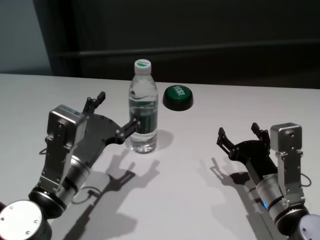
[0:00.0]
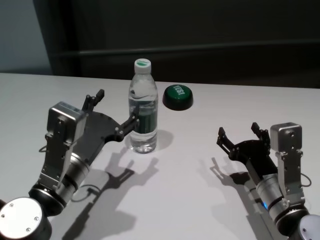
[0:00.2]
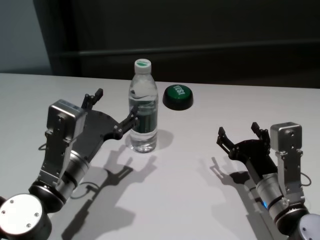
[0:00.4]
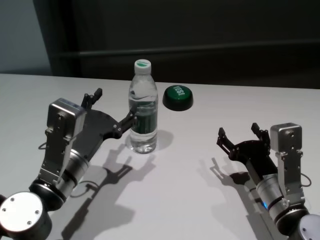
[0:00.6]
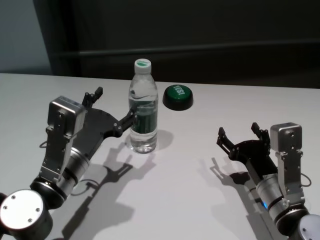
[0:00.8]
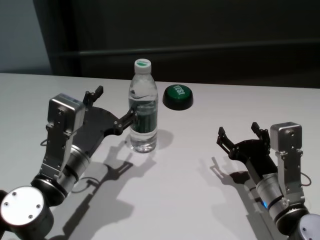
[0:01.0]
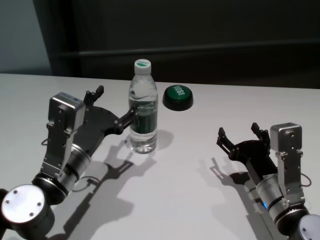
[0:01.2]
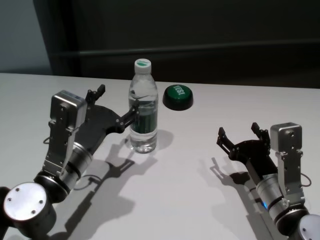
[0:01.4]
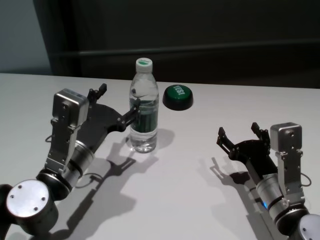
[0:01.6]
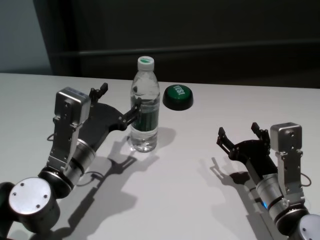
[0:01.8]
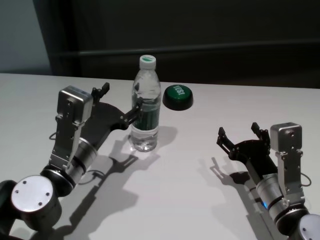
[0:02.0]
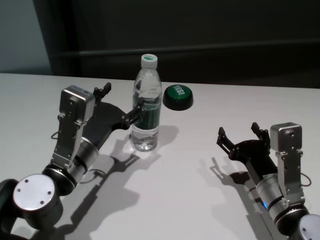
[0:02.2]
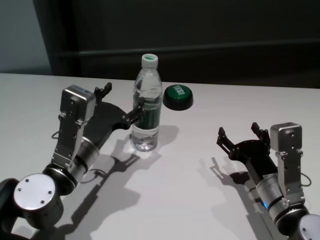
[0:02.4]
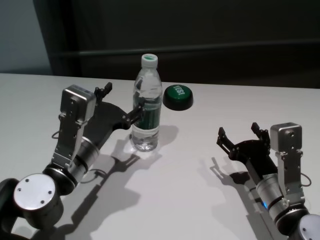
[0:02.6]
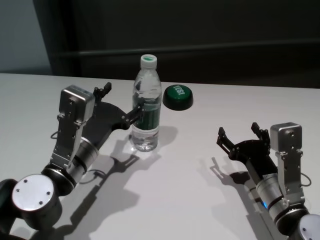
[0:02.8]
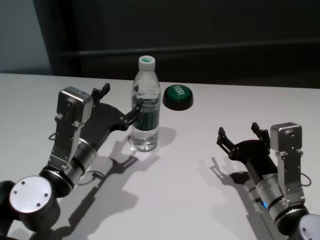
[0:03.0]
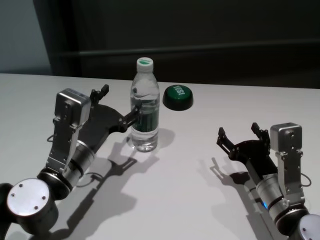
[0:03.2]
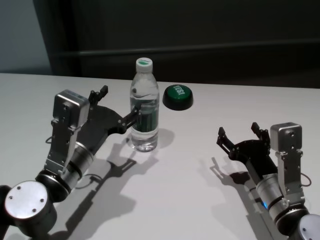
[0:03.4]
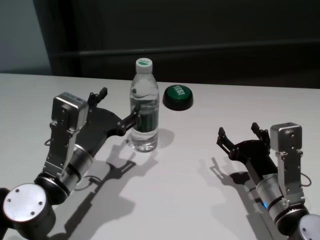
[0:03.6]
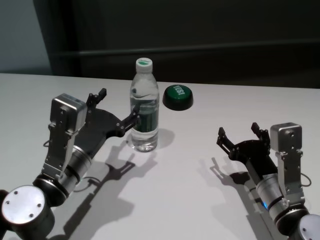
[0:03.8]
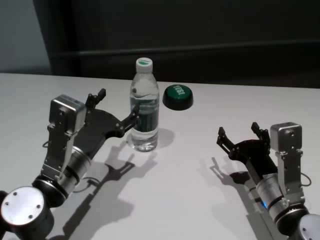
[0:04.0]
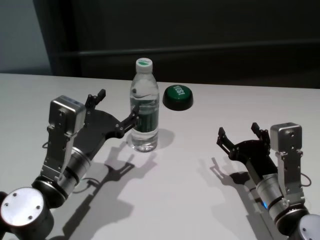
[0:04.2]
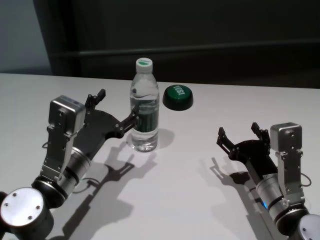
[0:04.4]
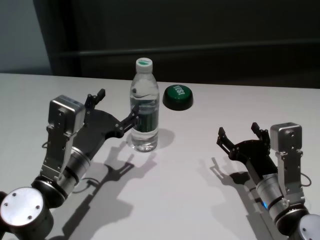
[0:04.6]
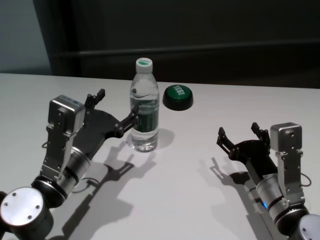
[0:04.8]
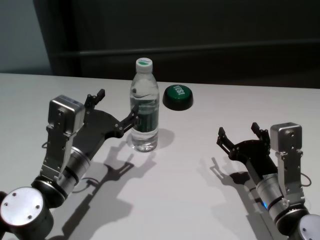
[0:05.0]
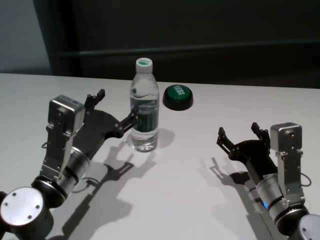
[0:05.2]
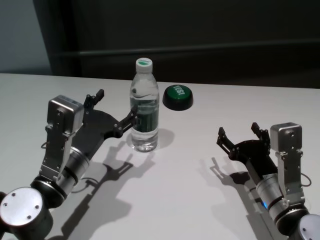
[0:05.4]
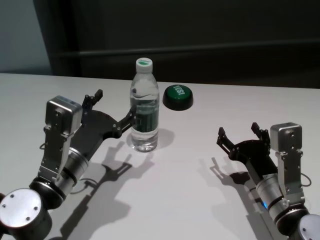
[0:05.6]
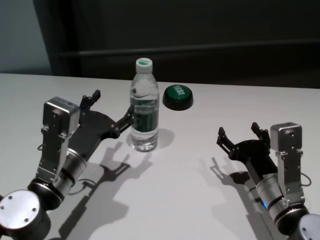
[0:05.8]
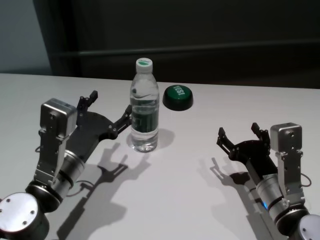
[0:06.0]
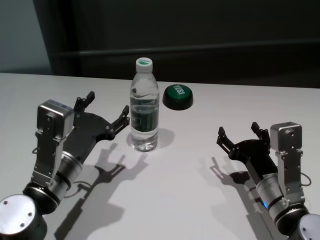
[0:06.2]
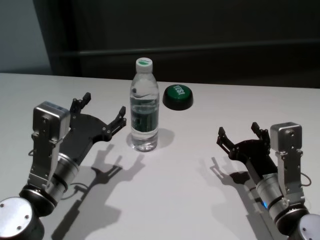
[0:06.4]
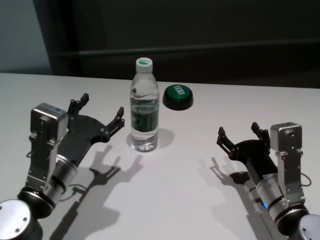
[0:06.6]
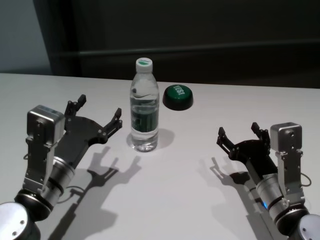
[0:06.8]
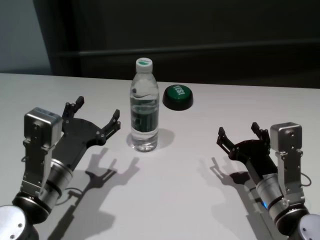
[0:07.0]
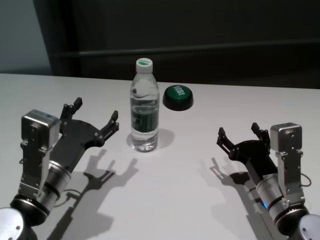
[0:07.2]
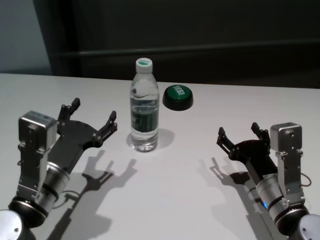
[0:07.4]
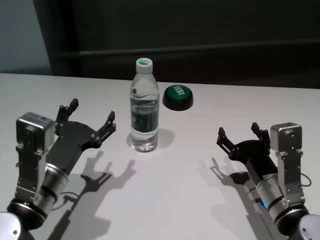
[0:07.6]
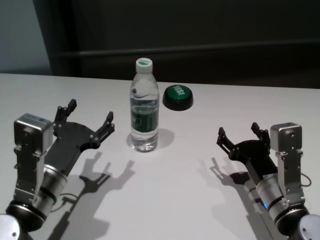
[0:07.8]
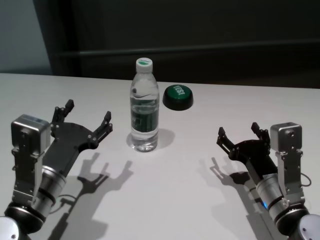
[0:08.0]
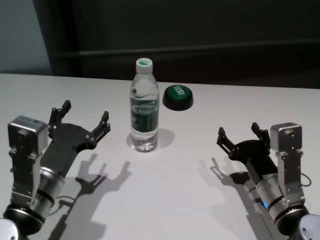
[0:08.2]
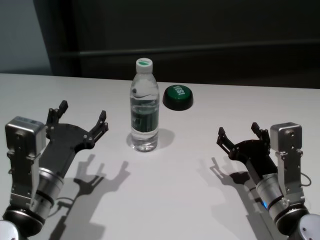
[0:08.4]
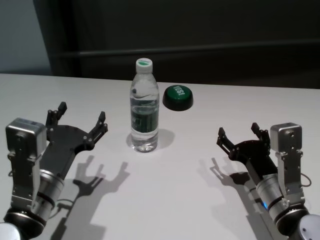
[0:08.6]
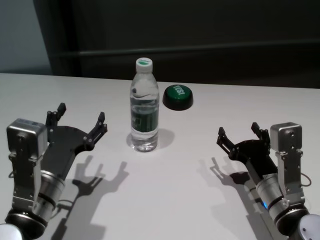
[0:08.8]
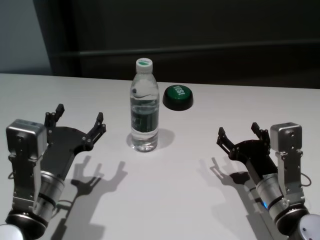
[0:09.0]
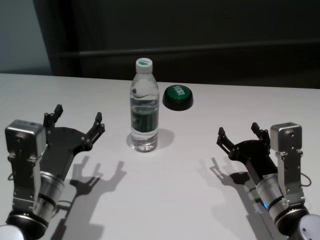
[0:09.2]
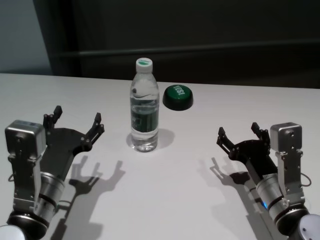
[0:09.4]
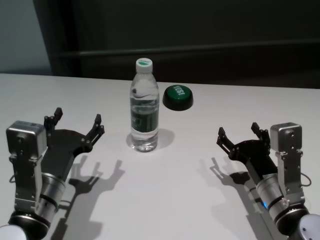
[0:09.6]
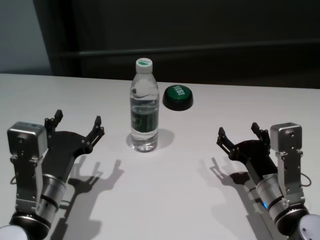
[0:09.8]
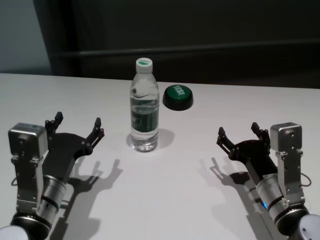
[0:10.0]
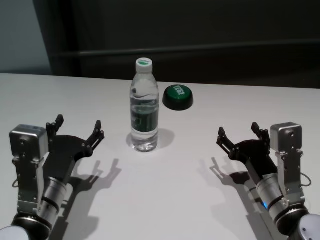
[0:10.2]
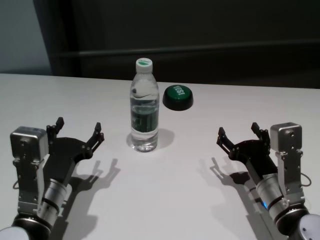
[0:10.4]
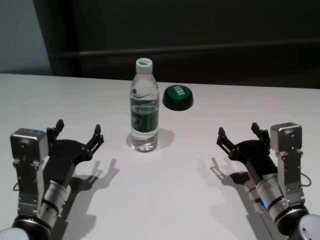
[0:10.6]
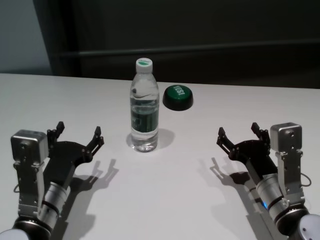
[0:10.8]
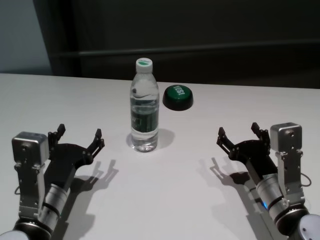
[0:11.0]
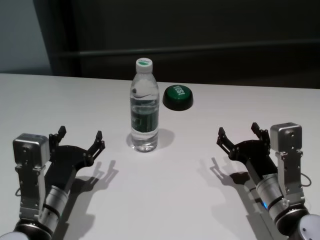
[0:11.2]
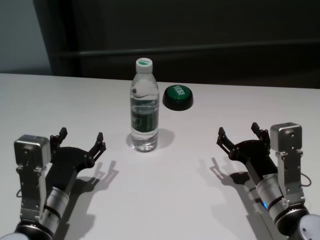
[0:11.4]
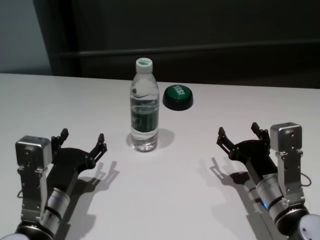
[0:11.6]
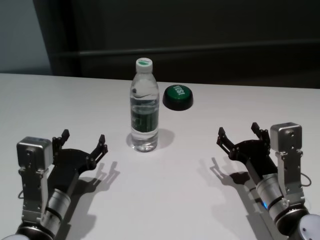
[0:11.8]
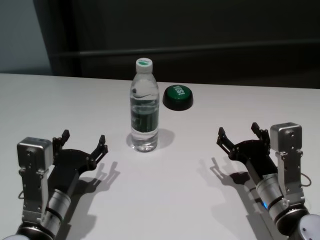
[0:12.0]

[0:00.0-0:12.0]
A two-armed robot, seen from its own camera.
Task of the whole recording: return to a safe position after touching an obstacle with your arm on the white table.
Step, 0:00.0 to 0:06.4: Touch the bottle with left gripper.

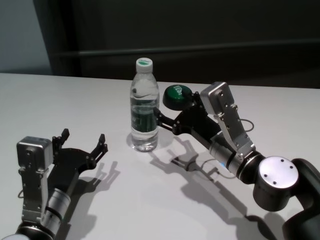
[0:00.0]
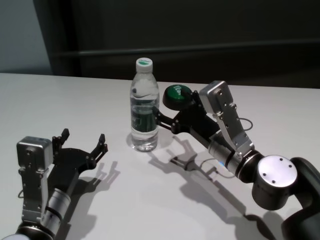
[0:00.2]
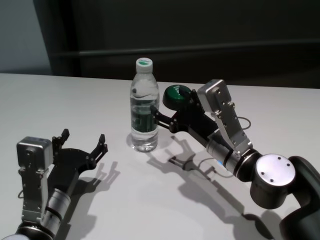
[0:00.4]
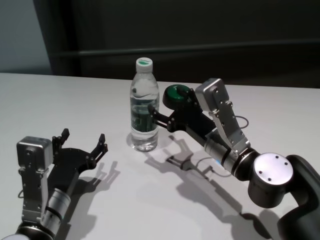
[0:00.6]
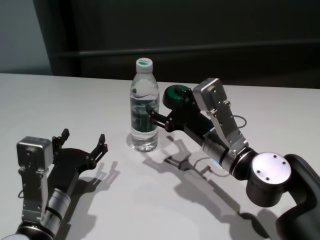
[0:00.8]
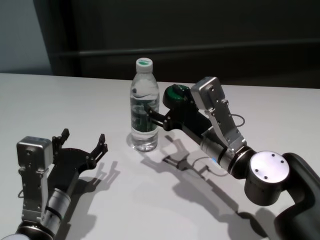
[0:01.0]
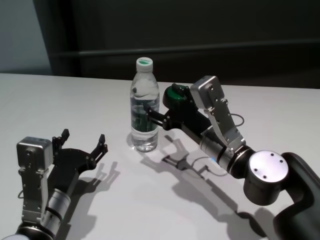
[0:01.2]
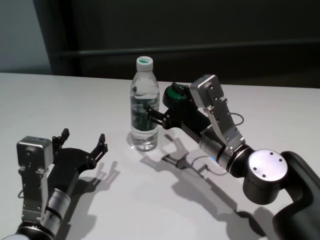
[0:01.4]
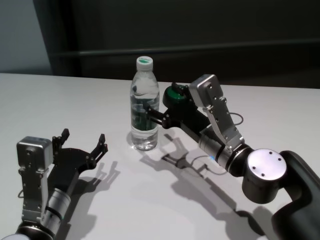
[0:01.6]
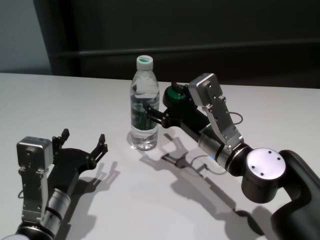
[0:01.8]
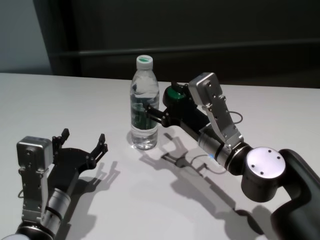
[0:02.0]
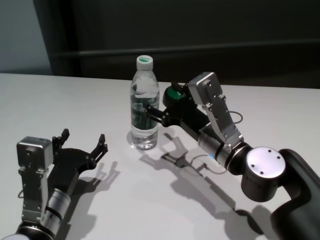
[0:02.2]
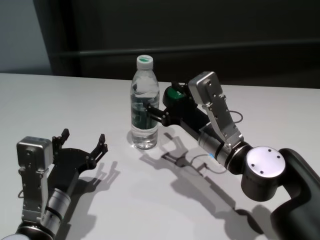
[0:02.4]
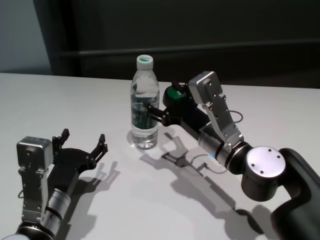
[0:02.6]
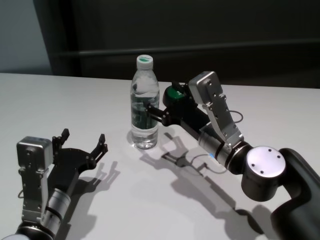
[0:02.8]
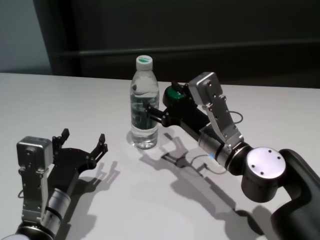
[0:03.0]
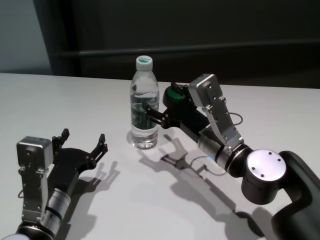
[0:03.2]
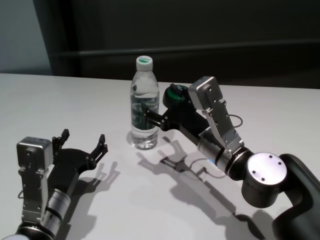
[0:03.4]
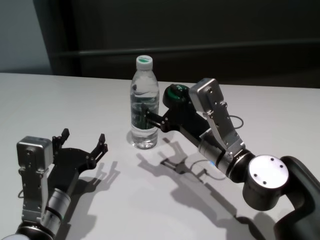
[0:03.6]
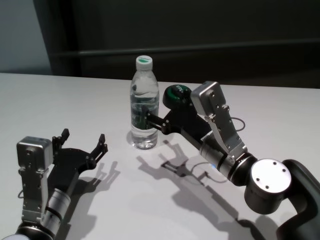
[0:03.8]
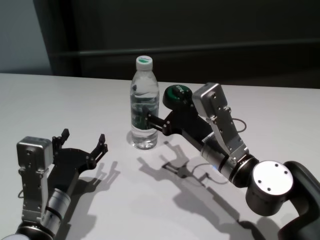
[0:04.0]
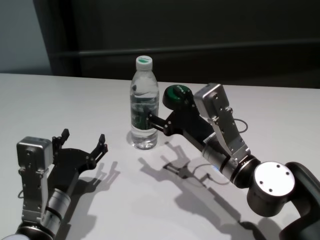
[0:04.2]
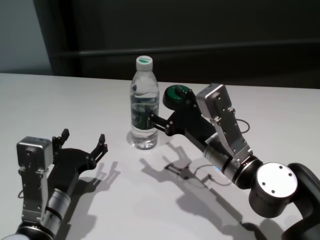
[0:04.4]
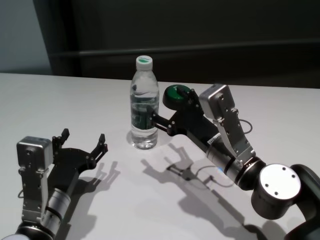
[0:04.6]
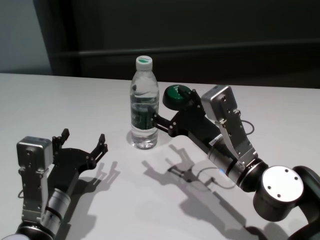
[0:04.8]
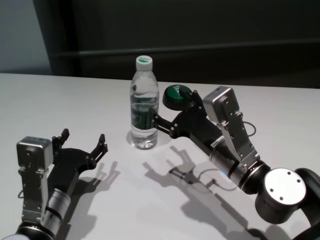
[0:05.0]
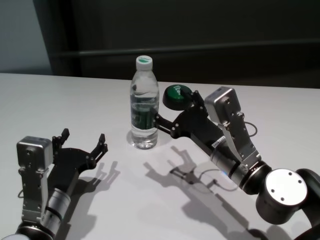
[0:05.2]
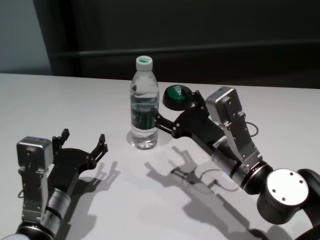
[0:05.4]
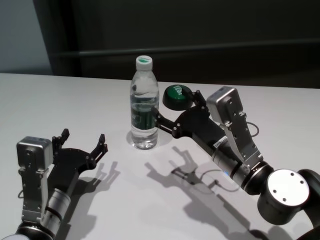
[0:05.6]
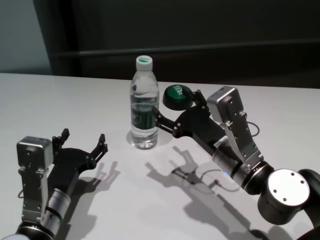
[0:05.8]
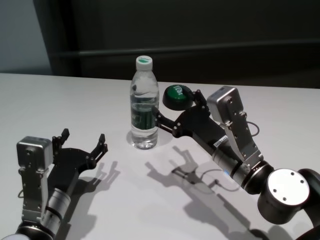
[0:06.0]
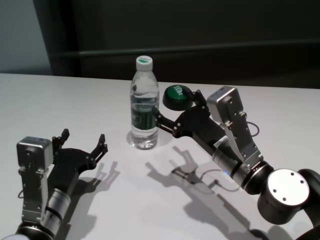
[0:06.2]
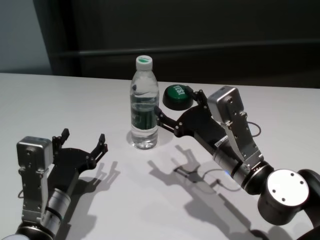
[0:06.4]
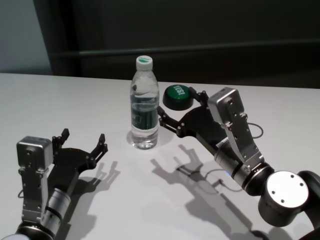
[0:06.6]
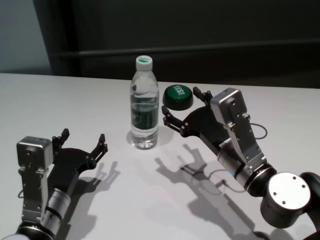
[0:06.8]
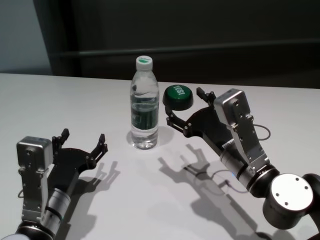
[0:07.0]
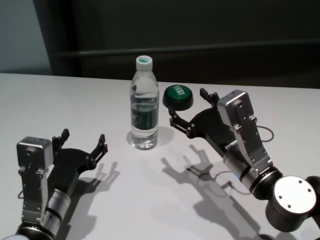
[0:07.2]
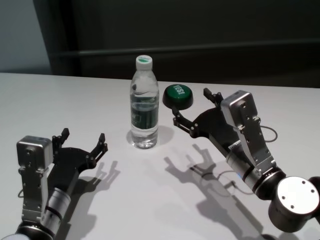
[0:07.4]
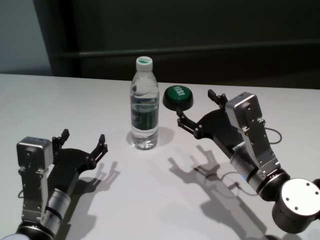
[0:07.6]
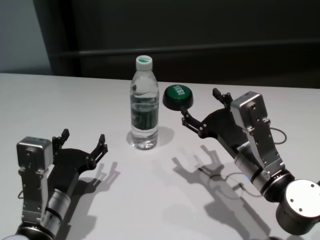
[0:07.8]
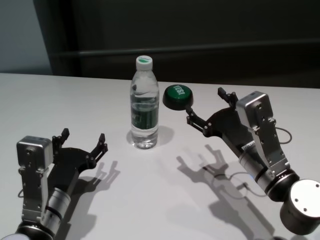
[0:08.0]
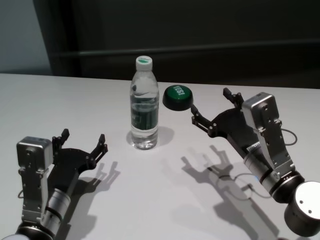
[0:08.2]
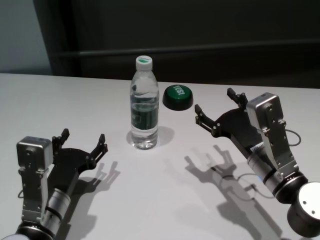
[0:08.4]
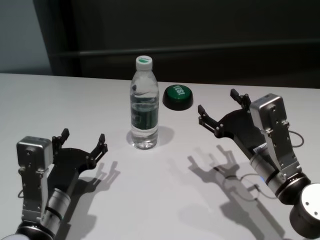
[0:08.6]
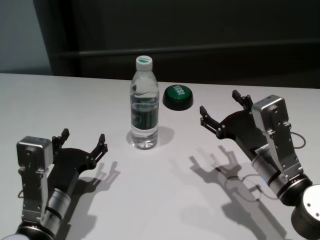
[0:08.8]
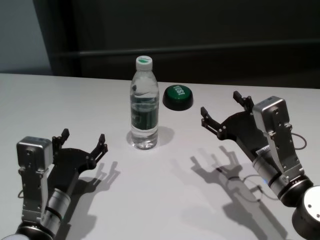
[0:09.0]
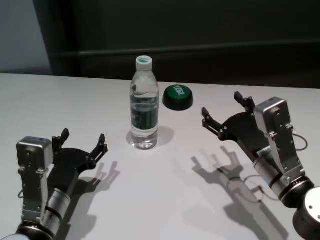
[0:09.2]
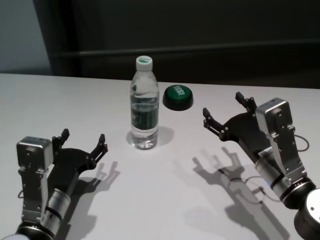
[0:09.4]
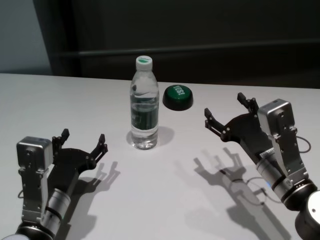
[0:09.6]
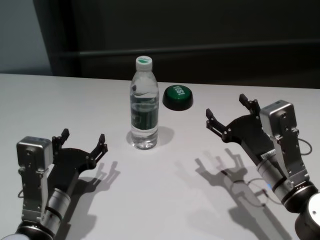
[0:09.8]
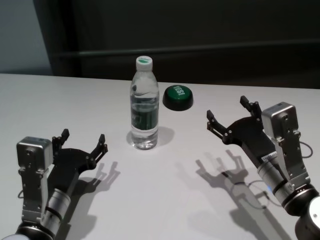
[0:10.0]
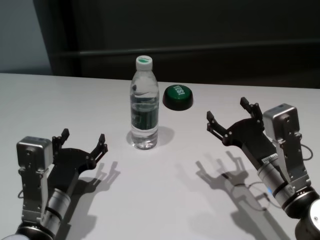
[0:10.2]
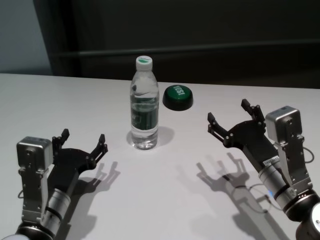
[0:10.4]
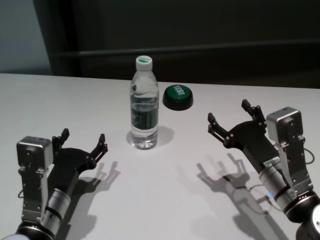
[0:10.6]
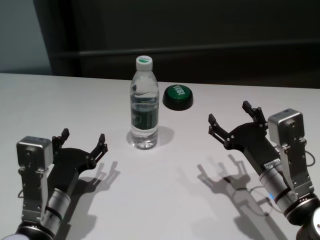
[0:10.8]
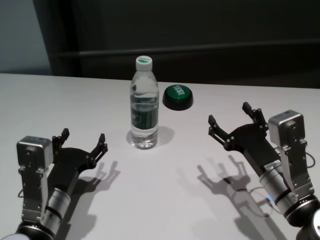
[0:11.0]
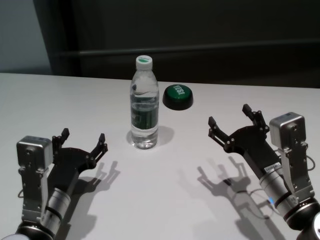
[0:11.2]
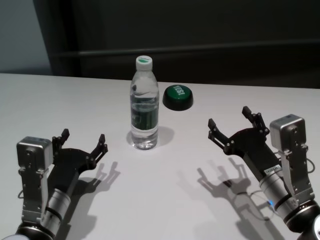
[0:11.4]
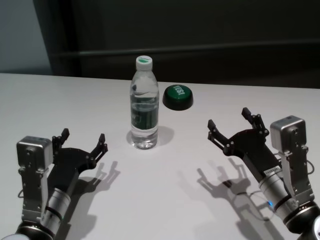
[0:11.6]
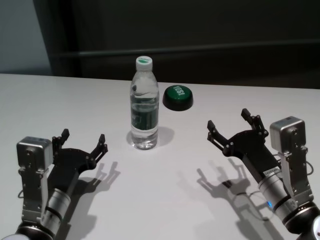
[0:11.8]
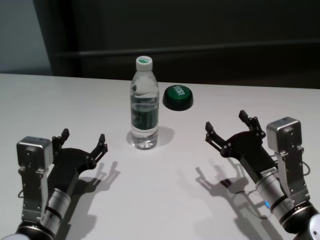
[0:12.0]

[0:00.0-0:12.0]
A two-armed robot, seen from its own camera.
Task of the whole recording: return to a safe position after touching an obstacle with your arm on the white table.
Step, 0:00.0 to 0:06.8: Touch the bottle with right gripper.
